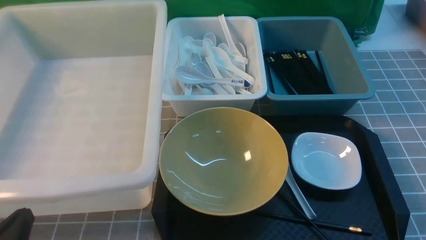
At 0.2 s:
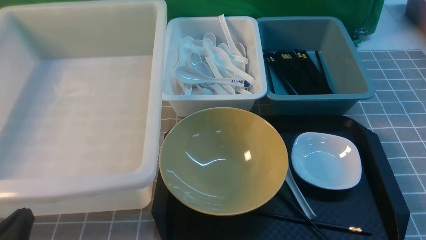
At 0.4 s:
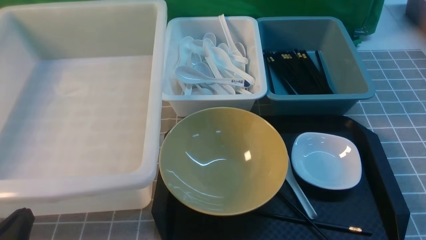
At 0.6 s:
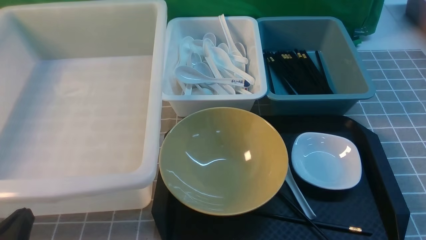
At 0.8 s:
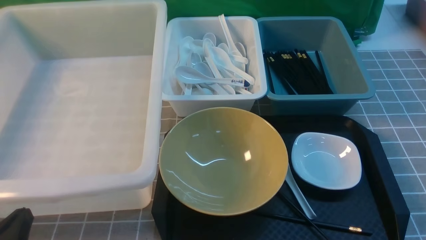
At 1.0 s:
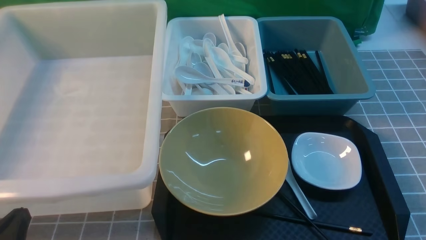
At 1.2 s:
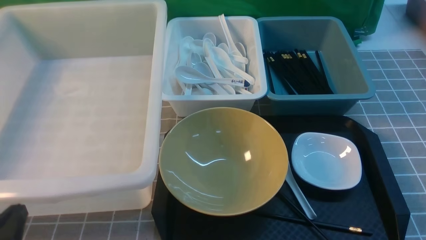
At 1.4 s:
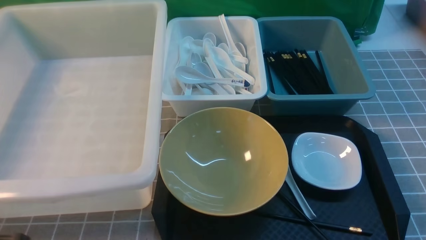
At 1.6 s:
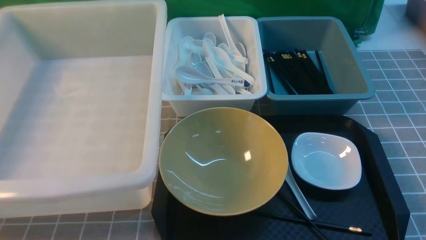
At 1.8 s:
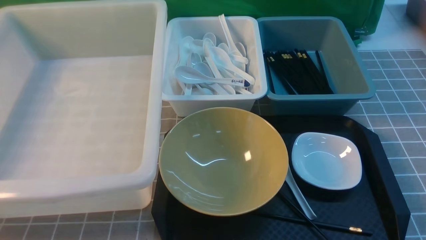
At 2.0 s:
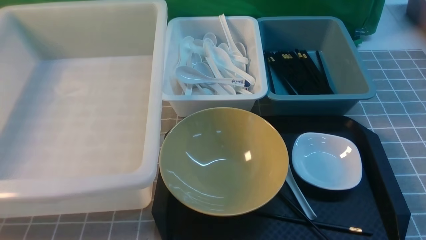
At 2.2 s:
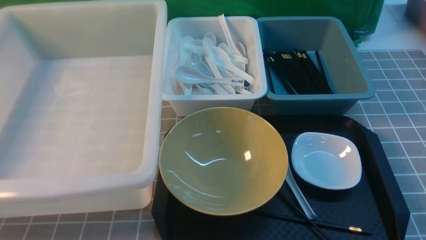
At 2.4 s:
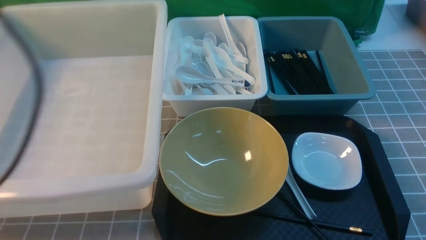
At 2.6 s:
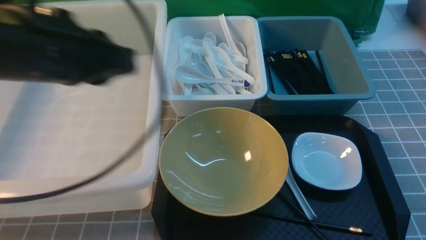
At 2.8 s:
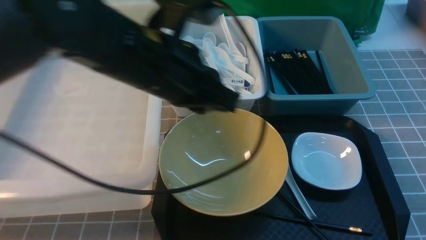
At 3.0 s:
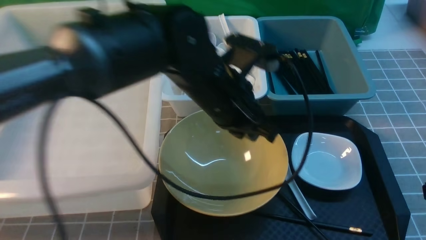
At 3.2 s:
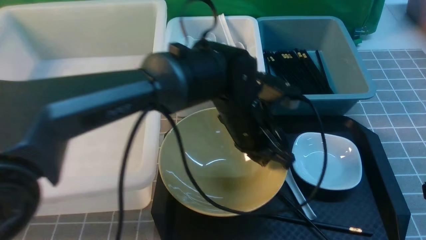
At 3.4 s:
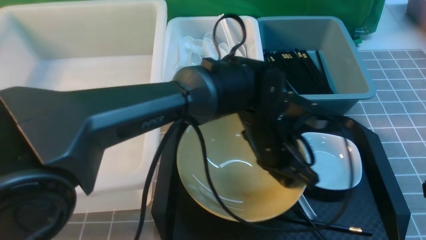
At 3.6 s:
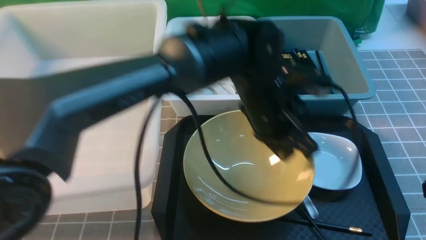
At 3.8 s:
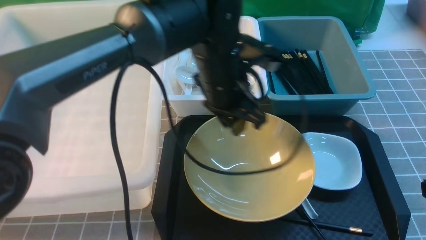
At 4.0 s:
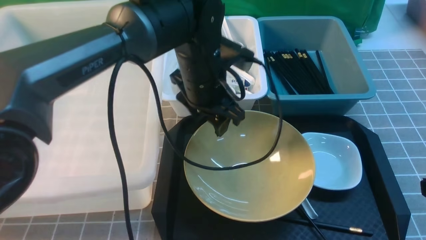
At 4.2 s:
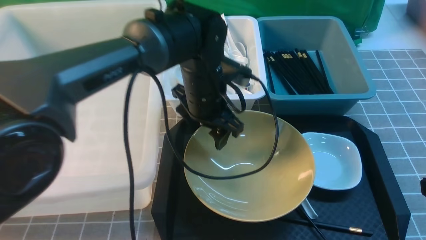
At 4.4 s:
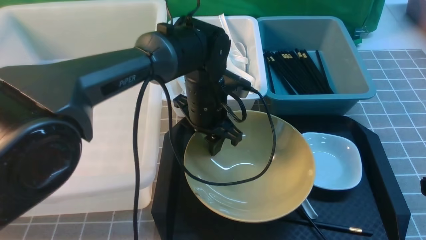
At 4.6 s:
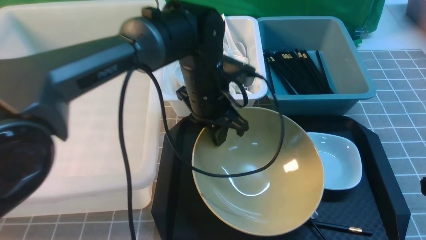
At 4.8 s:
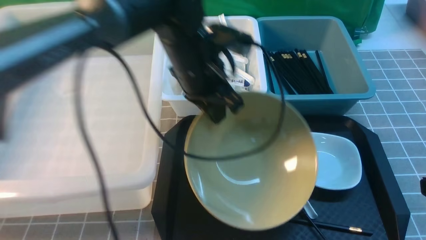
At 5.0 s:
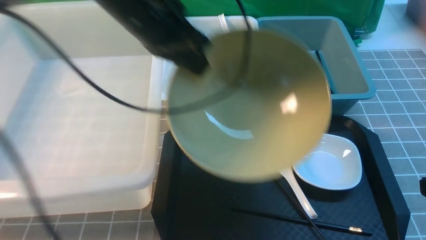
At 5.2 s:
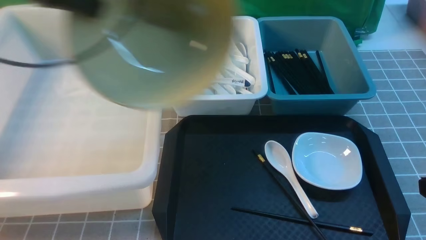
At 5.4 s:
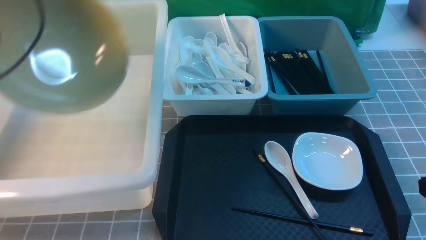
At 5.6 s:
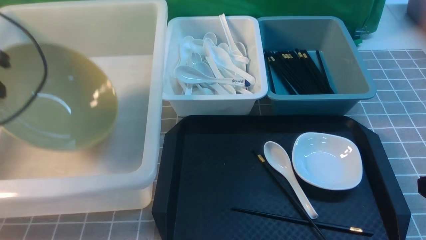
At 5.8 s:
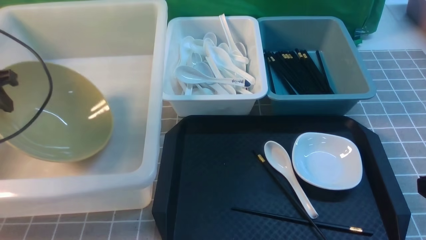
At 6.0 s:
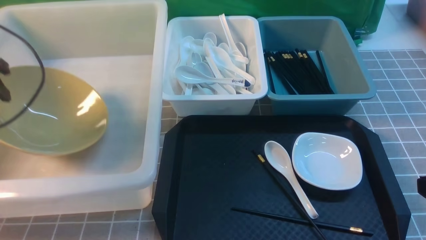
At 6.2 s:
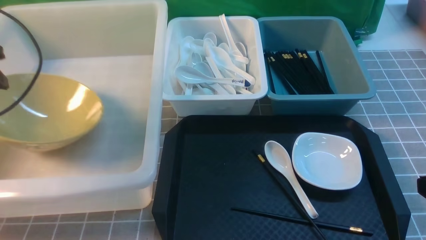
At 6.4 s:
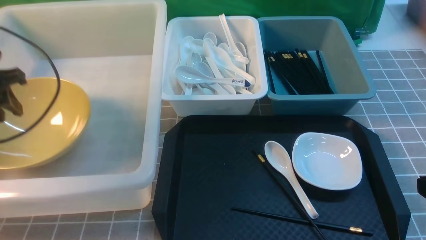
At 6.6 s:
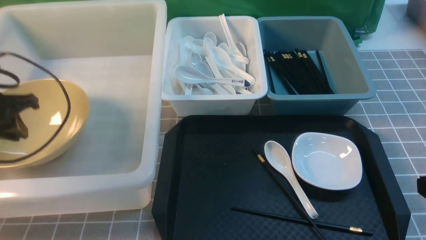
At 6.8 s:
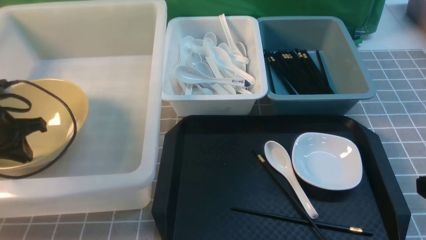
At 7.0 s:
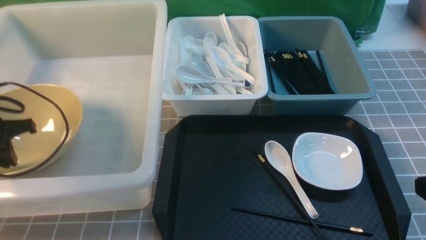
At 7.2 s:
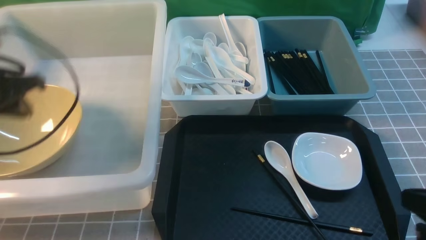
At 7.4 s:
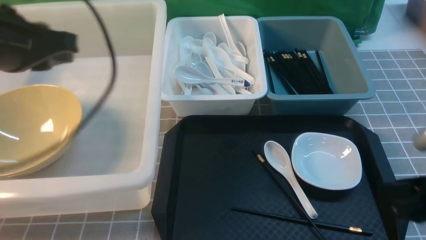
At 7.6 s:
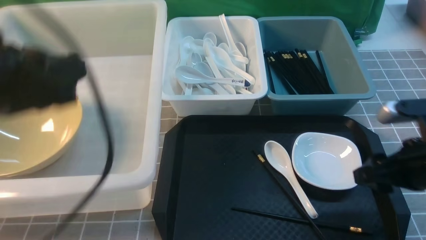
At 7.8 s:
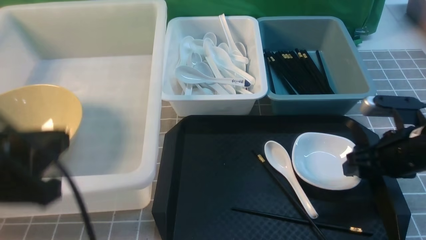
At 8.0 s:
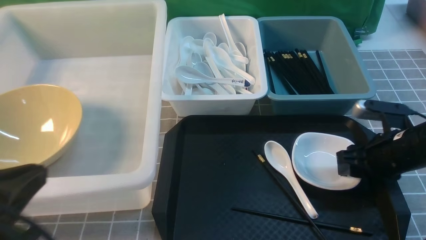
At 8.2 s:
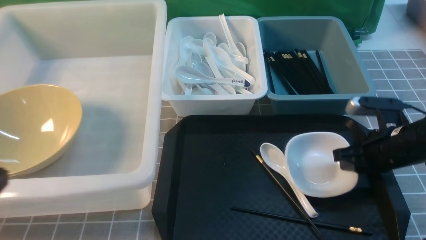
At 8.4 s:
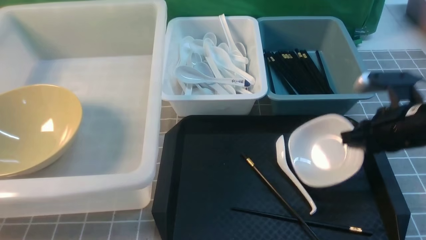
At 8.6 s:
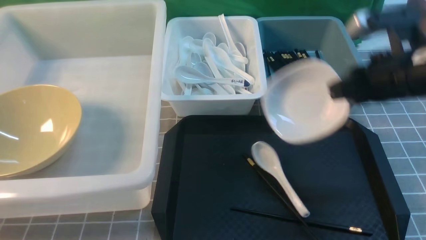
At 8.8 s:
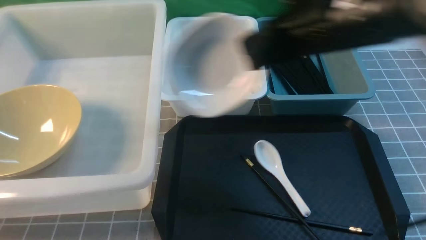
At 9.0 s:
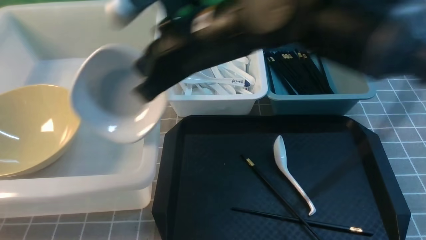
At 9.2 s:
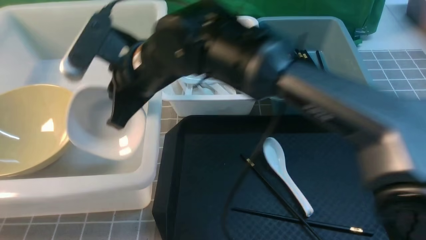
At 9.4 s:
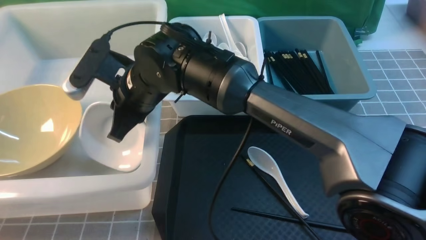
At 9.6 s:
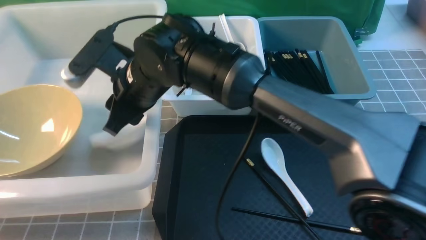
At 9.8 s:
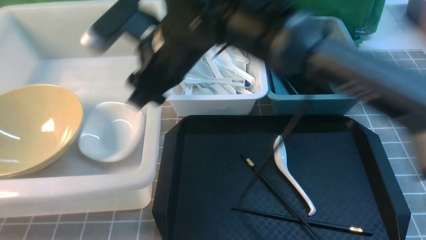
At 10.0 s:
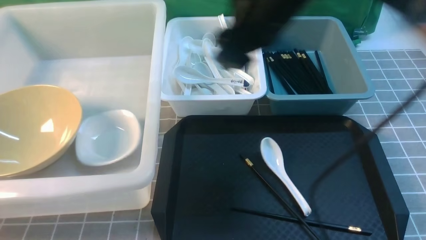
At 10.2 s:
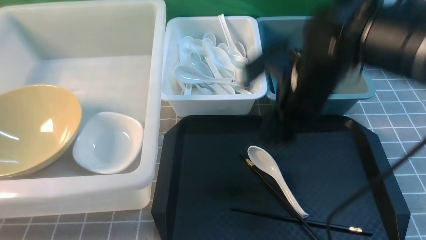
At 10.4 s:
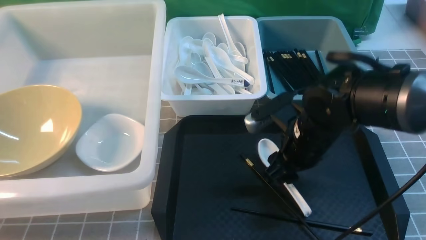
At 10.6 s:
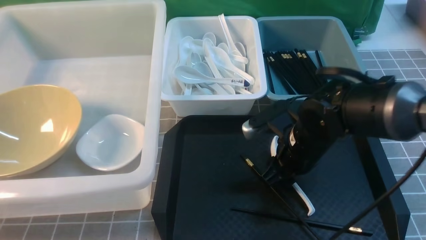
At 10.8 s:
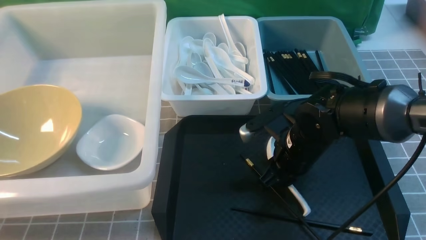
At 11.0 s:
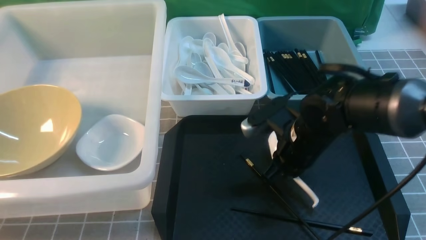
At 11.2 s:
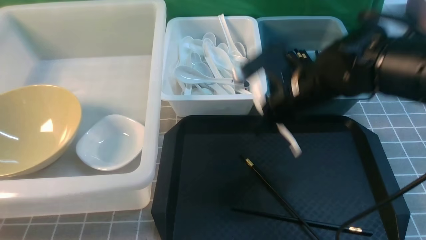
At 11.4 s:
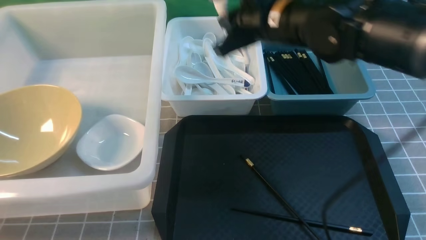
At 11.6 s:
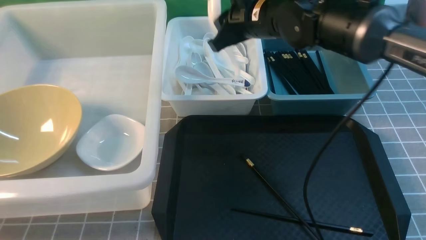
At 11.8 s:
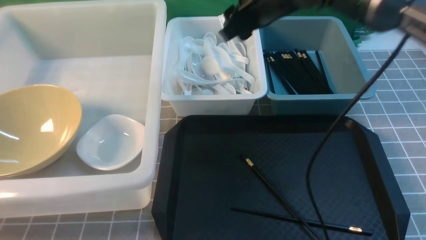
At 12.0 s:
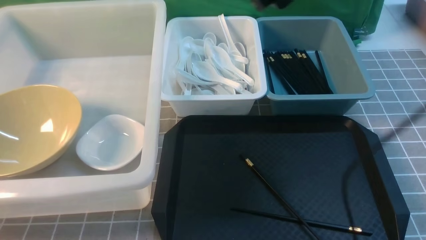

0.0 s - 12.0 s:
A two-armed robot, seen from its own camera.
Task of the whole recording: on grey table put chopsticks spoon bowls plates into blue grey white boxes.
Step, 0.0 s - 4.6 s: use the left arm to grab the yellow noodle bowl on the left.
Step, 4.8 s - 6.2 s: use the left arm to put the noodle bowl into the large storage box on the left.
Step, 6.4 s - 8.2 s: use the right arm to grab the plate.
Step, 8.6 s - 9.4 s: use the right arm to put the plate into the large storage box on the left.
Step, 9.6 s - 10.8 s: use the right arm to grab the soup spoon in the middle.
Step, 11.0 s - 11.8 s: use the right arm to put the soup spoon into the small storage box in the middle.
0.0 s - 1.6 s: The left gripper travels upward by approximately 10 cm.
1.6 s - 3.0 s: The left gripper shifts roughly 35 cm to the right and forward. The right gripper goes roughly 5 cm forward.
3.0 s - 4.4 s: The left gripper heads forward and downward, covering roughly 10 cm, travels to the right and back again, roughly 5 cm each way, and opens its fingers.
4.4 s - 6.0 s: The left gripper shifts about 35 cm to the left, and closes, then reopens.
6.0 s - 7.6 s: The right gripper goes roughly 10 cm forward, and opens up, while the left gripper shifts about 25 cm backward and to the right, and closes.
7.6 s - 9.0 s: The right gripper moves to the left and upward, roughly 30 cm, and closes. Meanwhile the left gripper goes some 15 cm backward, downward and to the left.
9.0 s - 10.4 s: The right gripper shifts about 20 cm downward and to the right, and opens.
10.4 s - 12.0 s: The right gripper goes approximately 20 cm upward, and closes, then opens again.

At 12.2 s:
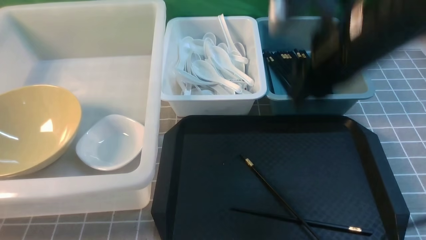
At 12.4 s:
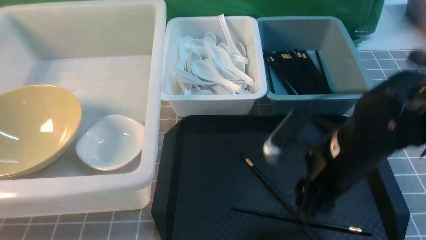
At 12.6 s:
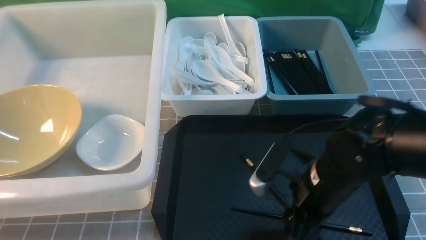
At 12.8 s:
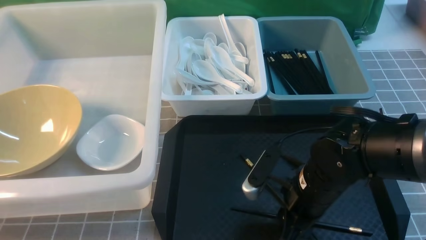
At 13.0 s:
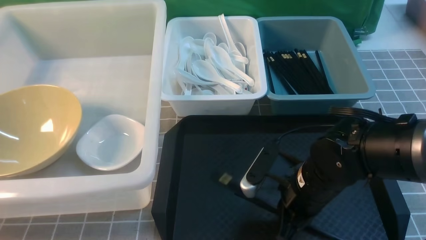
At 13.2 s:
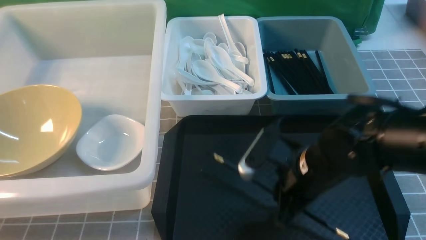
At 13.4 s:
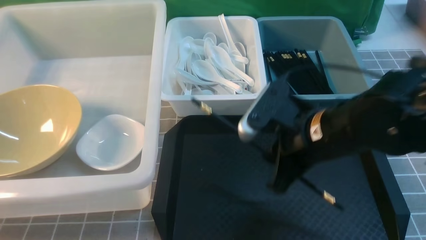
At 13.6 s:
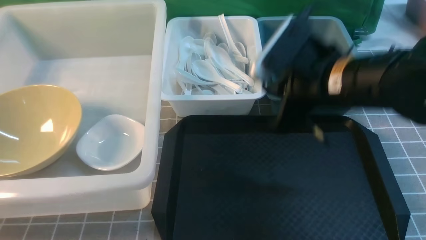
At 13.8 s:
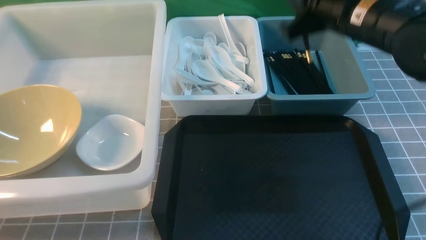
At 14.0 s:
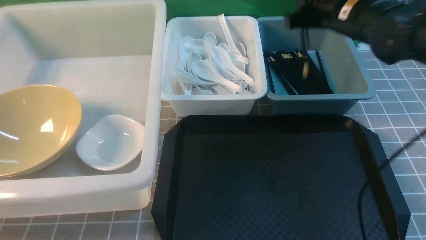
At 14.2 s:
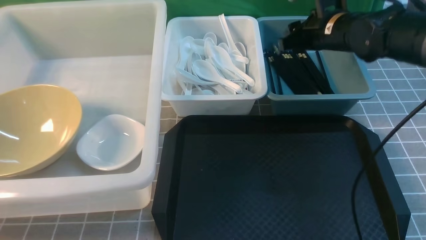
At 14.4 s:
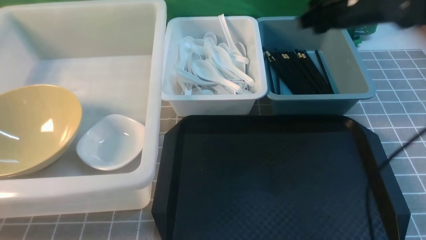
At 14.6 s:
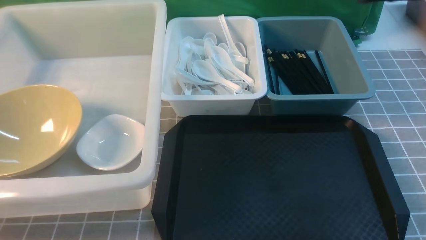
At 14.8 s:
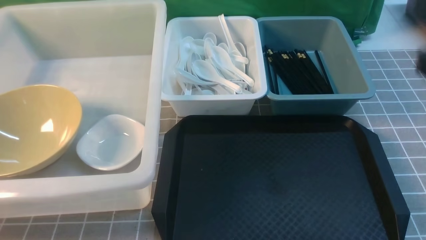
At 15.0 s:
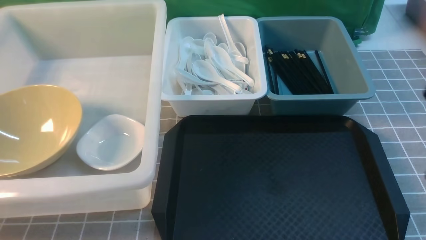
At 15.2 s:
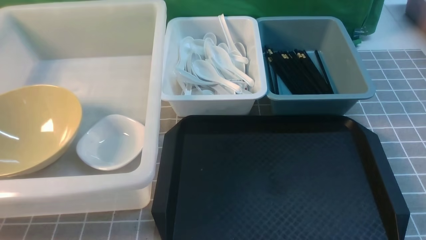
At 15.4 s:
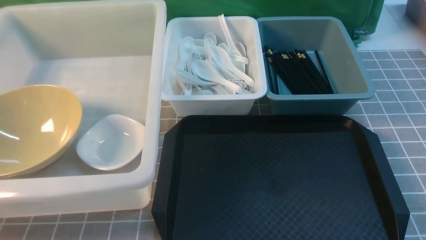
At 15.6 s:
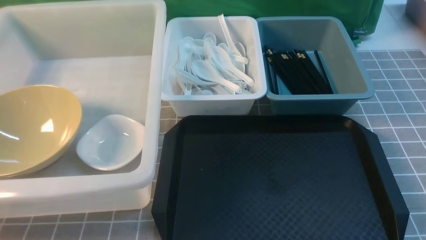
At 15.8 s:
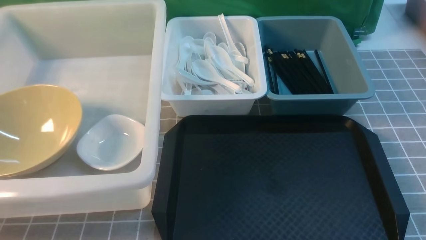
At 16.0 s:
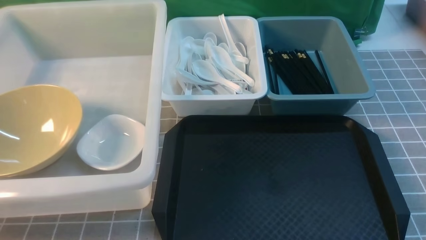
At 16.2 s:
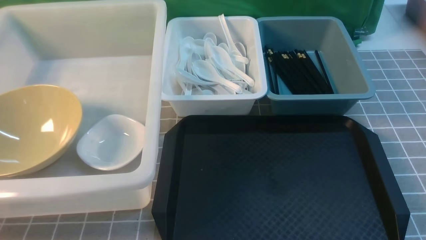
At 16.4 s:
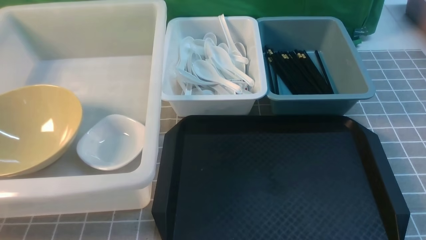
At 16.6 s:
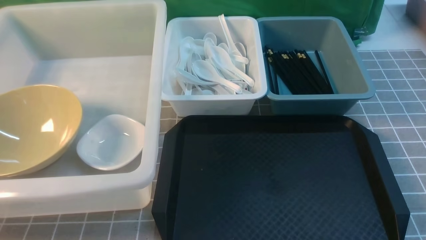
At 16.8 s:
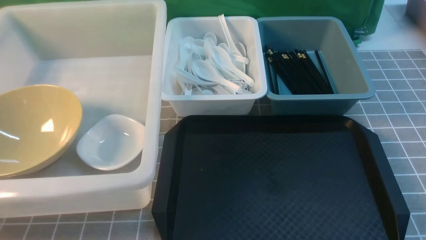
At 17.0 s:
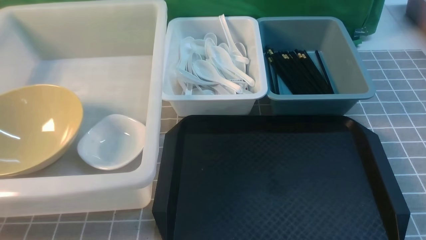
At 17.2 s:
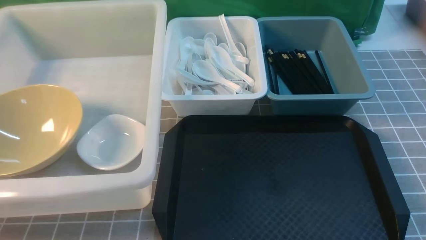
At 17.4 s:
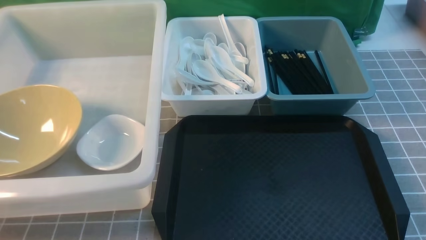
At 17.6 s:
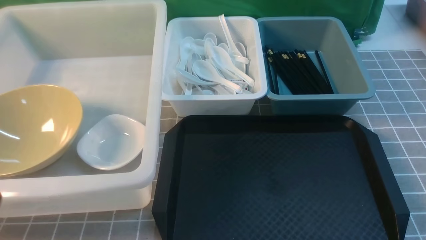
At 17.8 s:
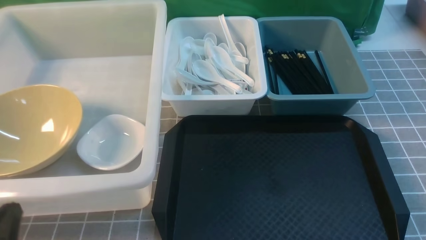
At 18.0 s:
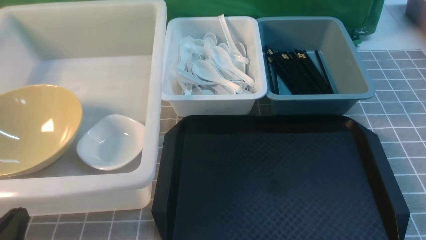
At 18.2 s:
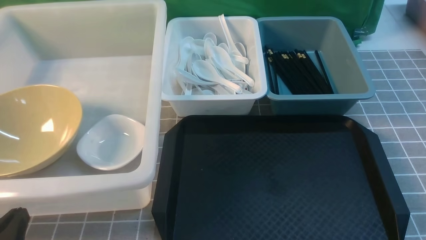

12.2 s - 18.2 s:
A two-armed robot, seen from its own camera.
Task of the whole recording: on grey table put chopsticks spoon bowls plates into blue grey white boxes.
Step, 12.2 s - 13.2 s: use the right arm to grab the chopsticks.
Step, 13.4 s - 14.4 s: use the right arm to put the chopsticks into the small storage box on the right.
12.2 s - 13.8 s: The right gripper goes roughly 5 cm forward, travels downward and back again, some 15 cm each way, and closes its fingers.
13.8 s - 15.2 s: The right gripper heads backward and to the right, covering about 30 cm, and opens and closes again.
16.6 s - 18.2 s: The left gripper goes approximately 10 cm downward.
